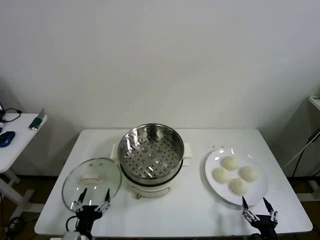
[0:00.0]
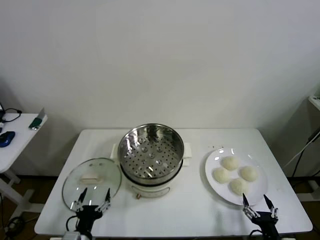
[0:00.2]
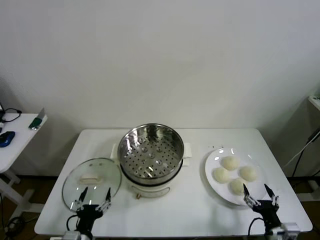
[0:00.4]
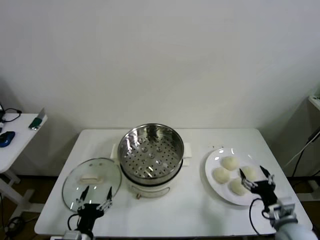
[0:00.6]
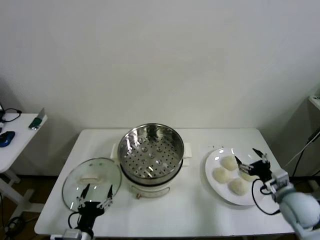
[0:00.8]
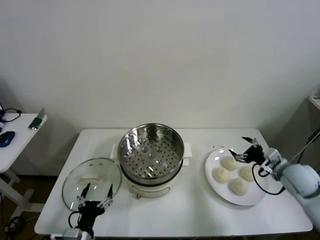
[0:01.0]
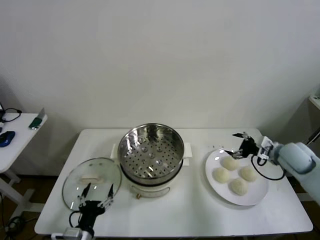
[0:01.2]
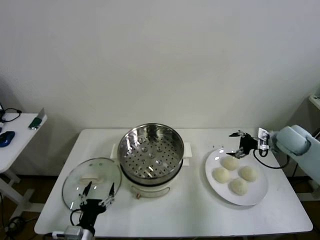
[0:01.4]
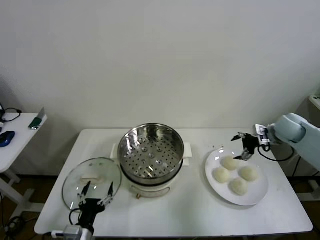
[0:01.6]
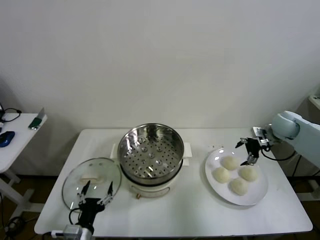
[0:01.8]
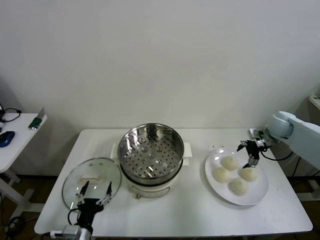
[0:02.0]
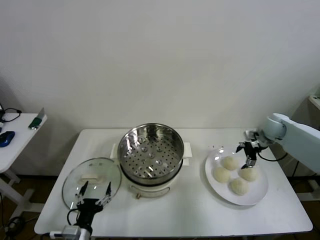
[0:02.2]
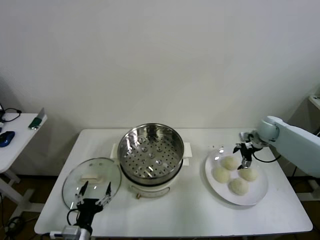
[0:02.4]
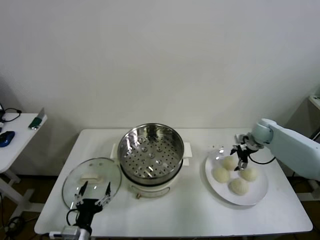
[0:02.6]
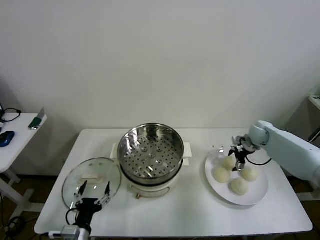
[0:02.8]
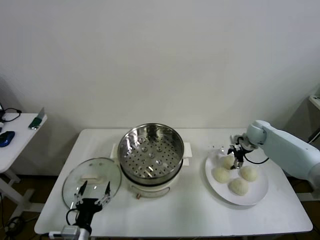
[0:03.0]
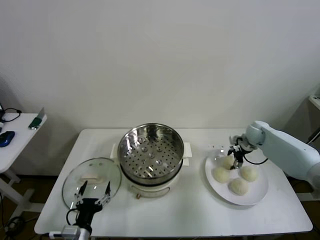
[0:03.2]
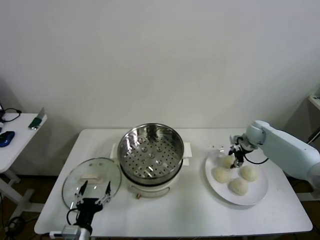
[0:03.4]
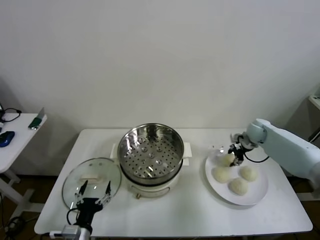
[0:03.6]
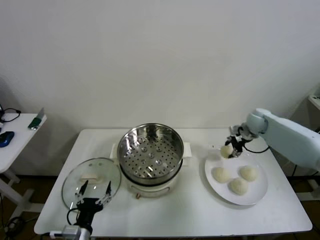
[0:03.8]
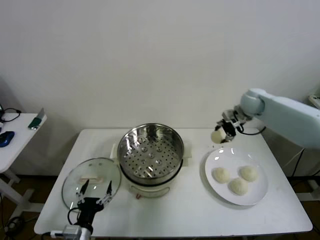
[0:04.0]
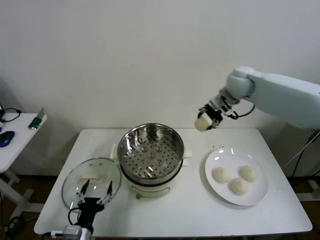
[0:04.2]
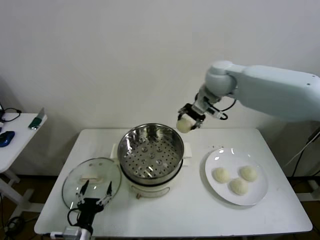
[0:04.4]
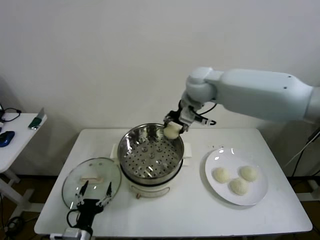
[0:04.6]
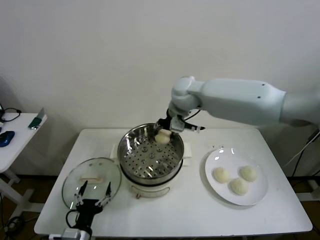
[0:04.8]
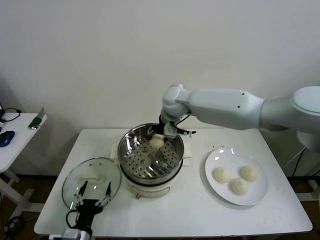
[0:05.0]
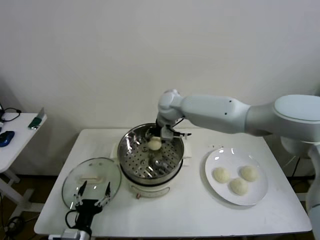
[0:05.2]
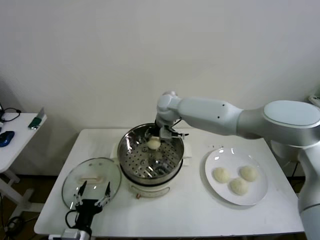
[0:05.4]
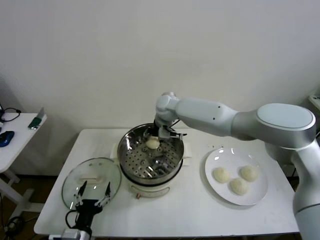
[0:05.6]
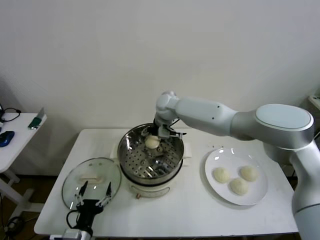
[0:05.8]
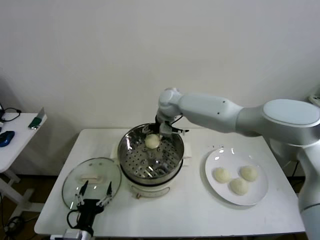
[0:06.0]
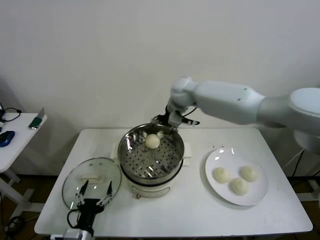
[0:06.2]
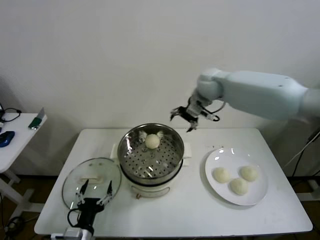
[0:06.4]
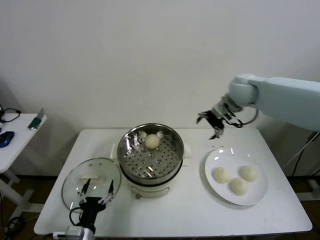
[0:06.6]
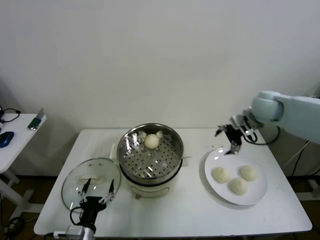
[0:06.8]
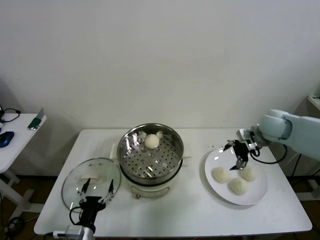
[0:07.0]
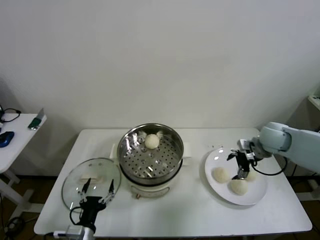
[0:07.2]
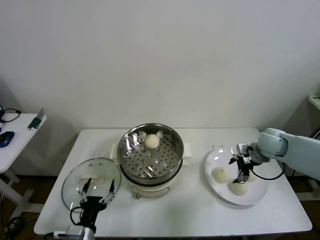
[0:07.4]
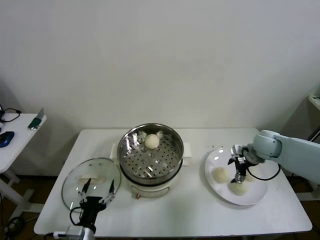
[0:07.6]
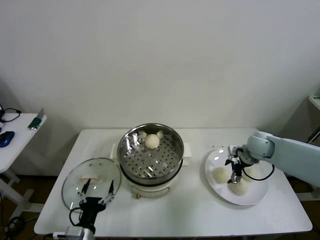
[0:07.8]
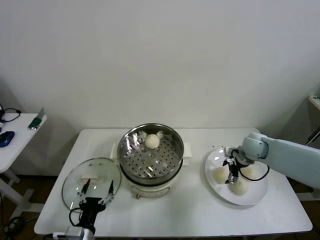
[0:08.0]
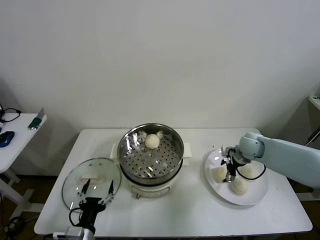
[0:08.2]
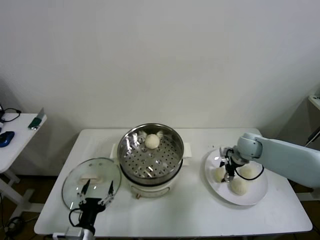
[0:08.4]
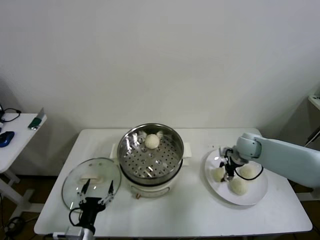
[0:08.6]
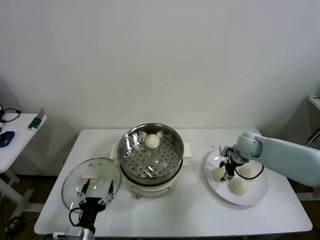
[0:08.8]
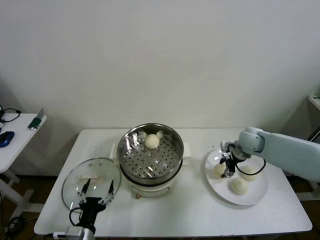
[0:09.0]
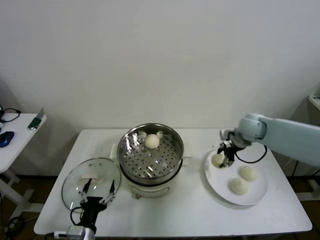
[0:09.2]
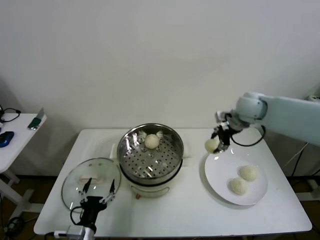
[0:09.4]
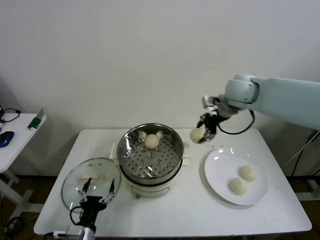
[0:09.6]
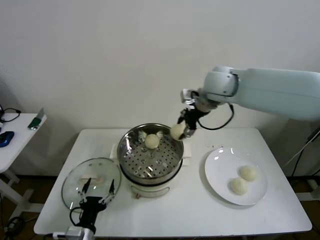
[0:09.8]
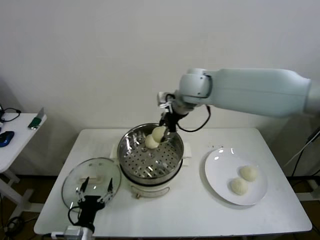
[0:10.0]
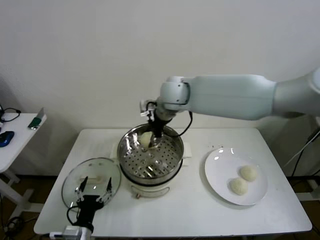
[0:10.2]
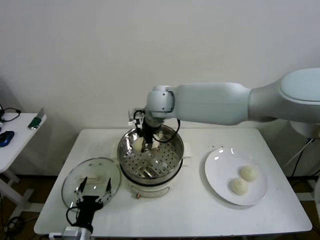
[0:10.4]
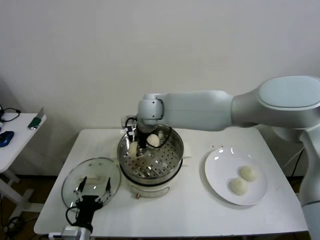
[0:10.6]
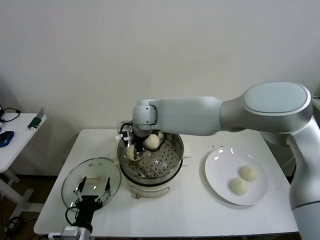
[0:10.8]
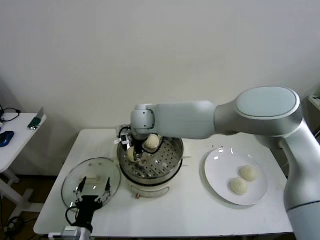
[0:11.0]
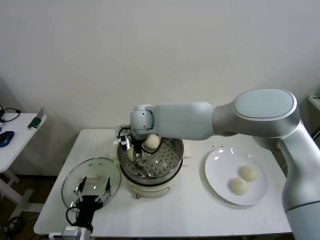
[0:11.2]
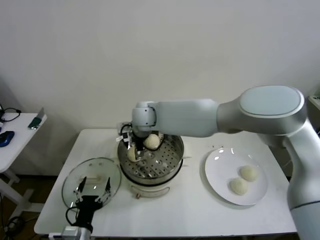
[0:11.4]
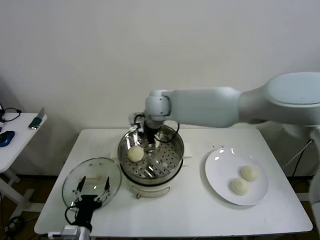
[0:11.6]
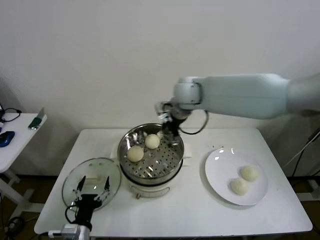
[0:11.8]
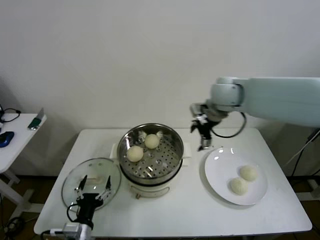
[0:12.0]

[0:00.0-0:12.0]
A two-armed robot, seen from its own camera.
Step, 0:00.0 to 0:03.2: Grasp the baozi in the plate with right gripper.
Step, 0:03.4 to 0:05.8: Place the baozi on the steamer with right gripper.
Step, 0:06.0 to 0:08.6: Grasp the baozi in the plate with right gripper.
Step, 0:08.8 to 0:11.2: Place the baozi on the steamer with right gripper.
0:01.6 to 0:03.0: The right gripper heads downward and forward, covering approximately 10 cm.
0:03.0 to 0:04.4: The right gripper is displaced upward and to the left by approximately 35 cm, and closes up.
0:04.4 to 0:06.0: The right gripper goes some 15 cm downward and to the left, and opens.
0:06.0 to 0:07.6: The right gripper is displaced to the right and downward by roughly 35 cm.
0:07.6 to 0:09.0: The right gripper closes its fingers.
0:09.0 to 0:10.4: The right gripper shifts about 35 cm to the left and upward.
0:10.4 to 0:12.0: The right gripper moves to the right, approximately 25 cm, and opens its fingers.

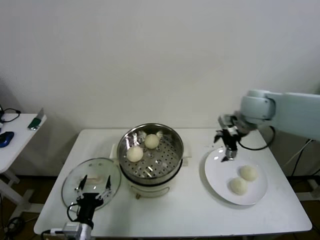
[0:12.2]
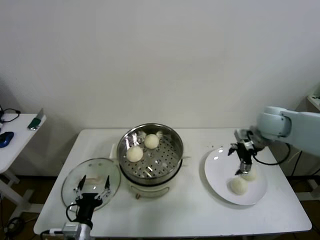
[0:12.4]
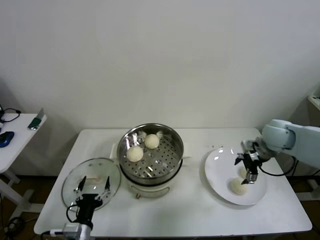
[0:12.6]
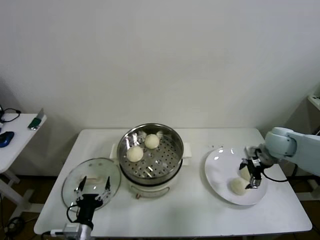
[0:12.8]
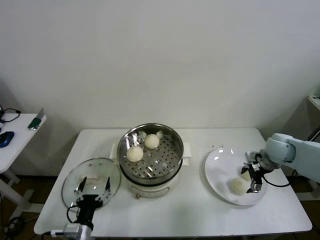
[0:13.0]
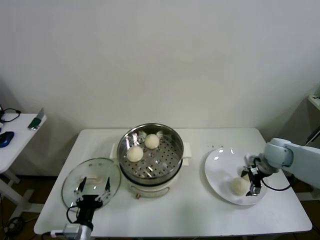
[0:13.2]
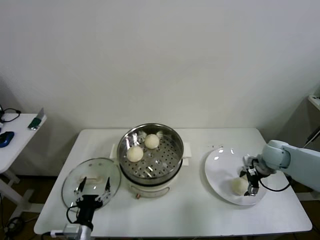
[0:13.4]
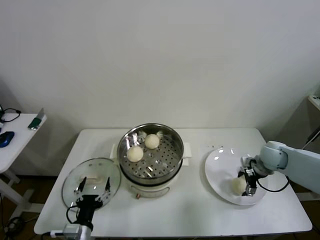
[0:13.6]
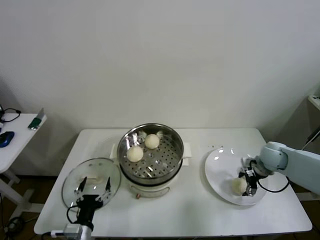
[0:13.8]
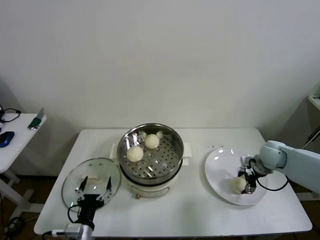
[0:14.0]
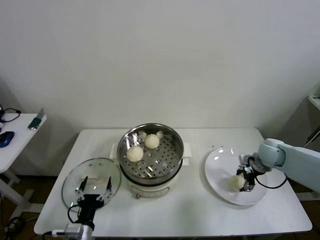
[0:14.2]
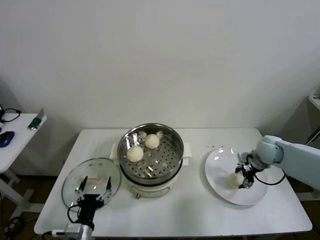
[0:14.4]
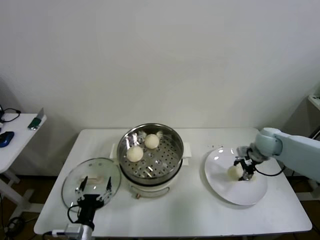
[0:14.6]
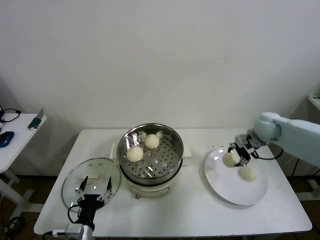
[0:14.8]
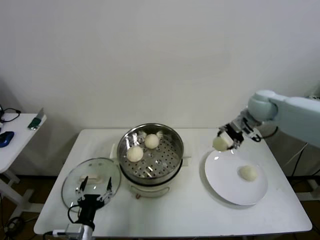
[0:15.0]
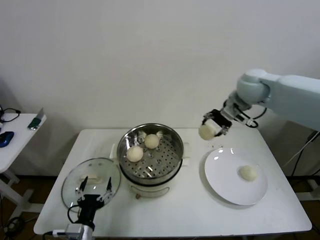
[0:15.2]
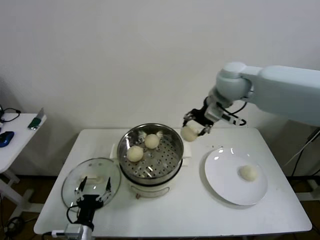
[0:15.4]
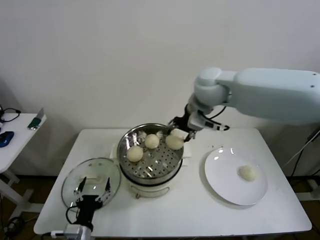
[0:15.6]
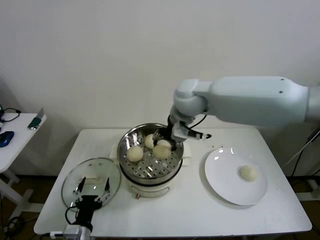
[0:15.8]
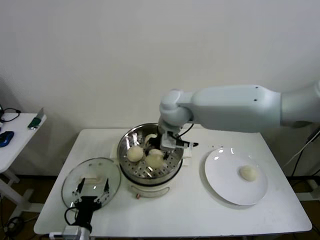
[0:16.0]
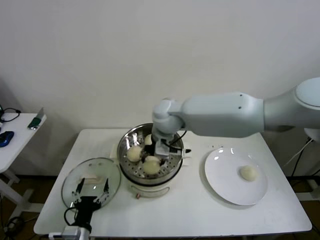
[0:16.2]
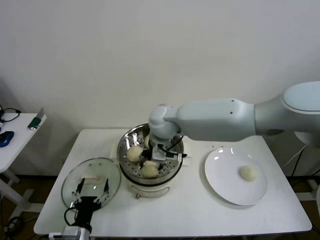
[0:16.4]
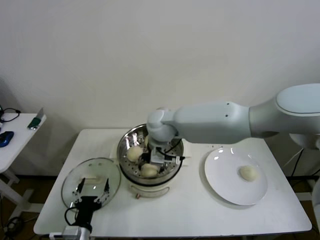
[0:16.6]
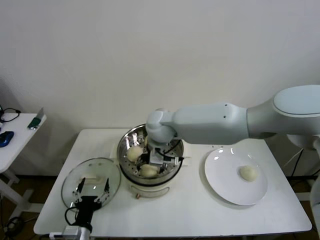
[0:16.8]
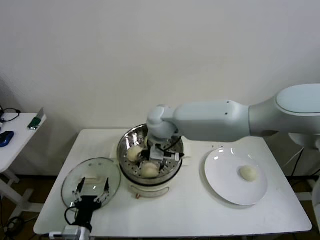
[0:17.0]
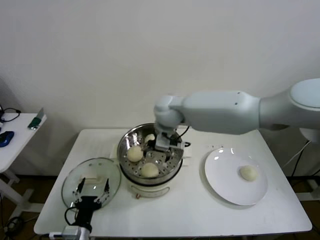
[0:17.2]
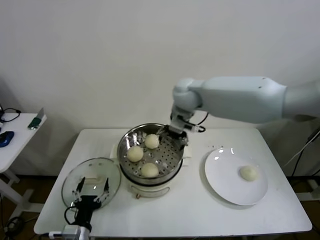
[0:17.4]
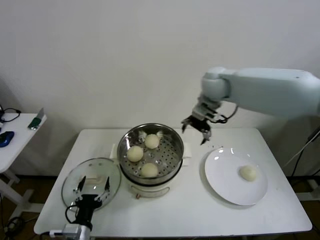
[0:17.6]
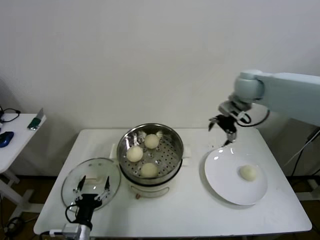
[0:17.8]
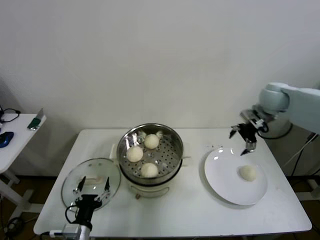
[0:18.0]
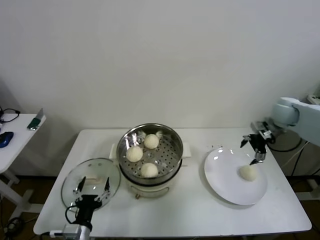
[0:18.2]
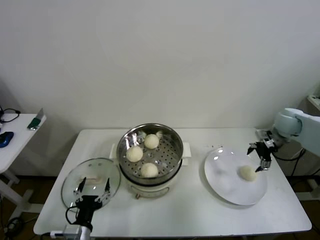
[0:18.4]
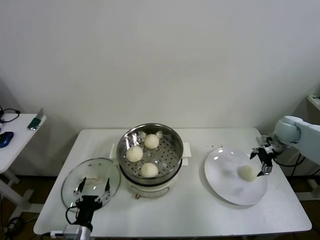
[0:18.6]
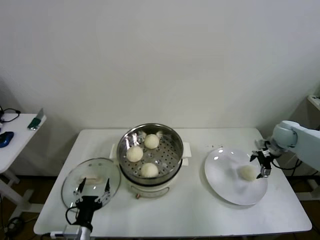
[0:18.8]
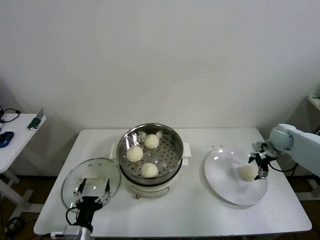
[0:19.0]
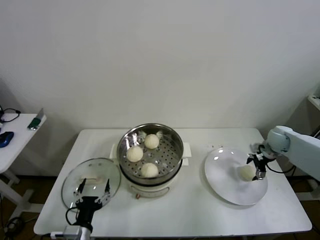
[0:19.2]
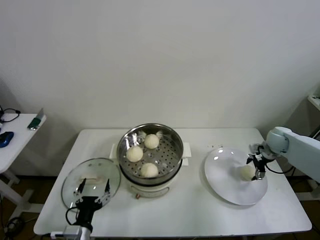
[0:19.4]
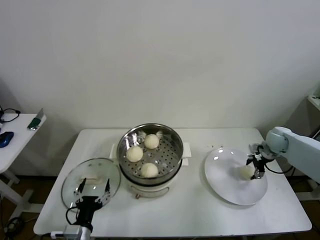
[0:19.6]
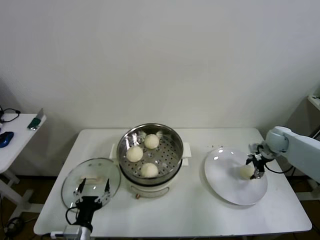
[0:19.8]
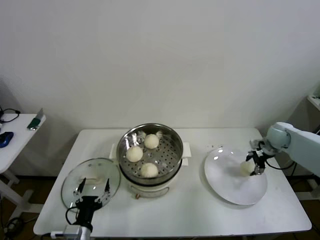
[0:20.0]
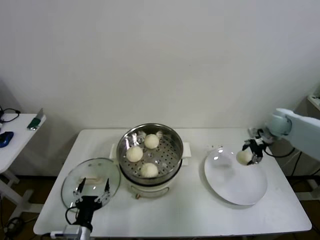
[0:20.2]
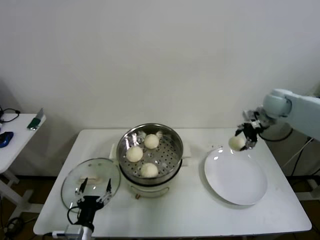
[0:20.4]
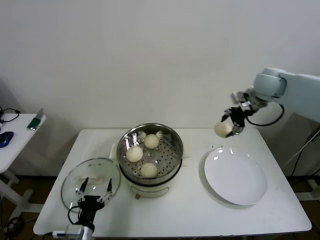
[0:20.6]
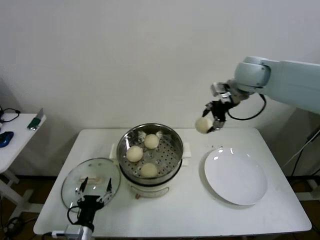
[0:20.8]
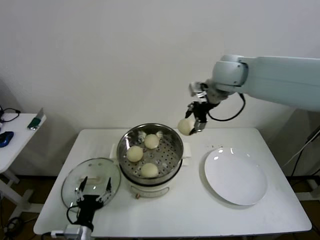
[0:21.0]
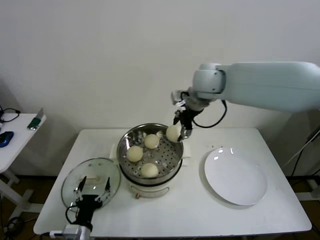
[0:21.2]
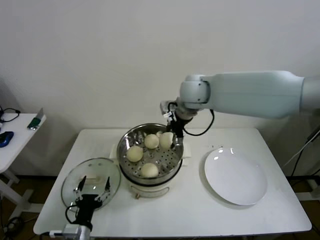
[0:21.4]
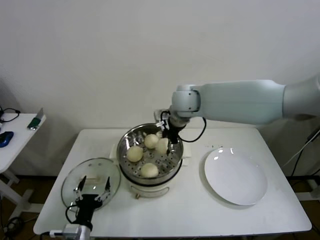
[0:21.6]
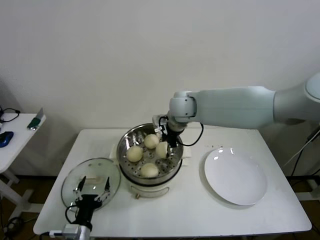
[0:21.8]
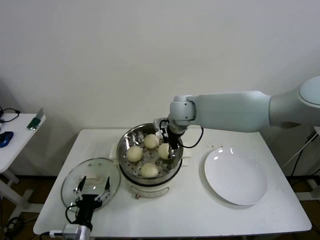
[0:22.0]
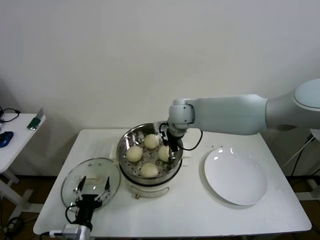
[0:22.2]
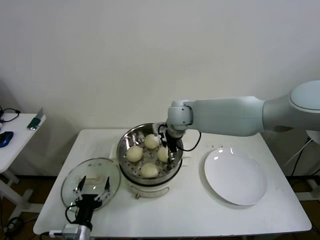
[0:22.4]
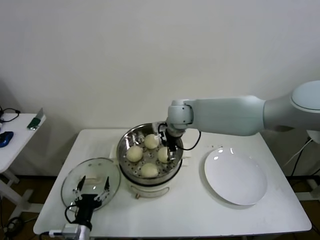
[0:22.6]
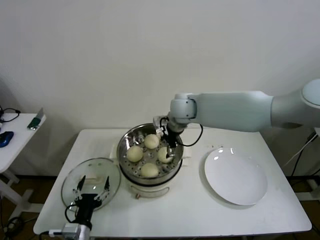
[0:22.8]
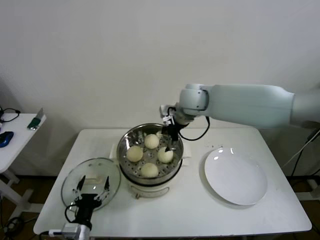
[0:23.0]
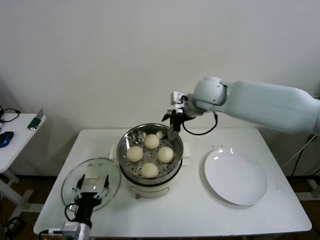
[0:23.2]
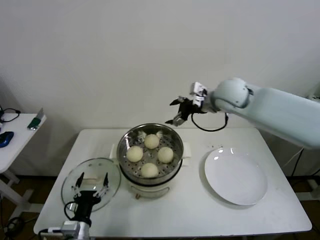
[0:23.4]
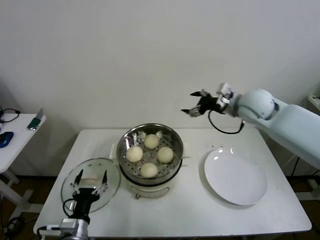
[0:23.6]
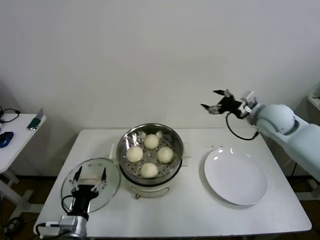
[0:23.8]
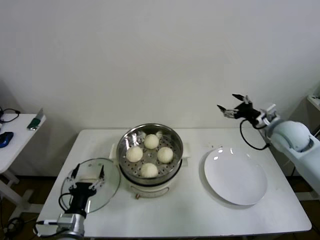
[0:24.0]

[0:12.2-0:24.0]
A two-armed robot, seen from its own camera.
Step, 0:12.2 to 0:14.0: Grasp the baozi in the plate with right gripper.
Step, 0:14.2 to 0:17.0: Place the baozi on the steamer with right gripper.
Step, 0:17.2 to 0:19.4: Grasp the baozi in the plate with right gripper.
Step, 0:19.8 to 0:22.6: Place the baozi on the steamer with right gripper.
0:12.2 to 0:13.6: The right gripper moves downward and to the right, approximately 20 cm.
0:13.6 to 0:15.2: The right gripper is displaced upward and to the left by roughly 30 cm, and closes up.
0:15.2 to 0:16.6: The right gripper shifts some 30 cm to the left and downward, and opens its fingers.
0:16.6 to 0:18.2: The right gripper shifts roughly 40 cm to the right.
0:18.2 to 0:19.6: The right gripper goes some 15 cm downward, and closes its fingers.
0:19.6 to 0:21.0: The right gripper travels upward and to the left by roughly 40 cm.
0:21.0 to 0:22.6: The right gripper moves downward and to the left, some 20 cm, and opens its fingers.
0:22.6 to 0:24.0: The right gripper heads to the right, covering roughly 35 cm.
